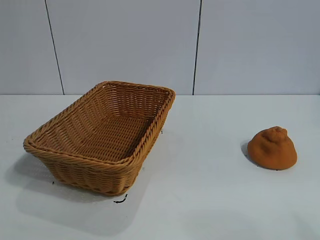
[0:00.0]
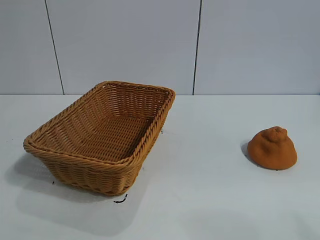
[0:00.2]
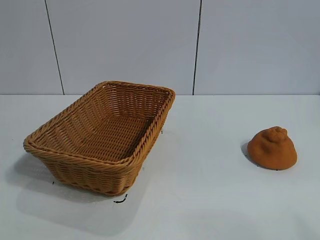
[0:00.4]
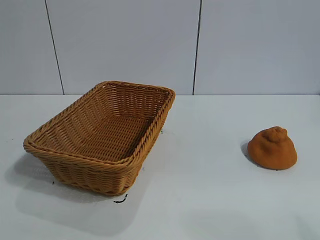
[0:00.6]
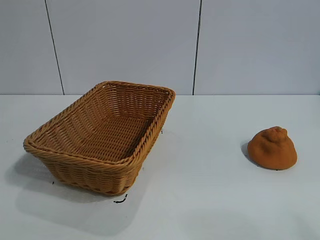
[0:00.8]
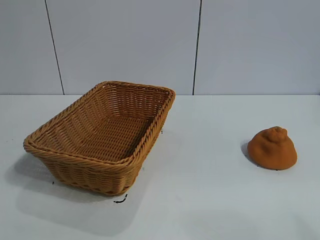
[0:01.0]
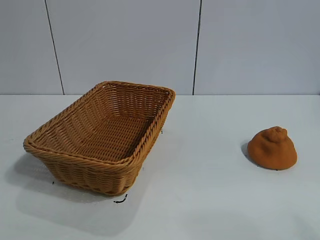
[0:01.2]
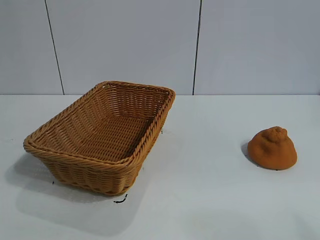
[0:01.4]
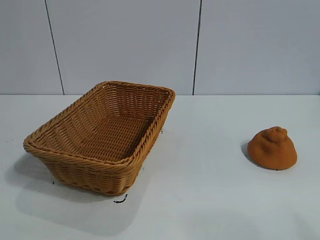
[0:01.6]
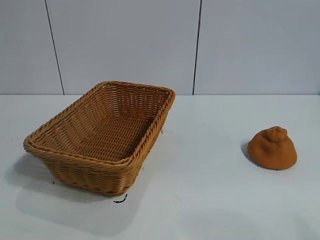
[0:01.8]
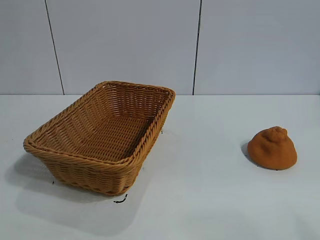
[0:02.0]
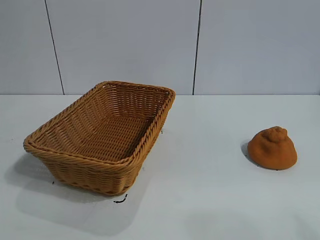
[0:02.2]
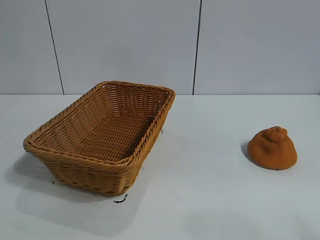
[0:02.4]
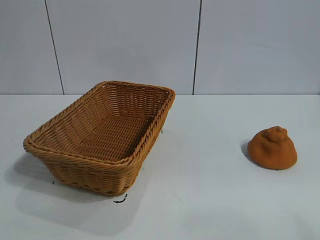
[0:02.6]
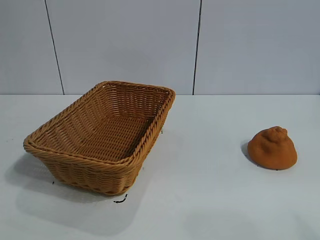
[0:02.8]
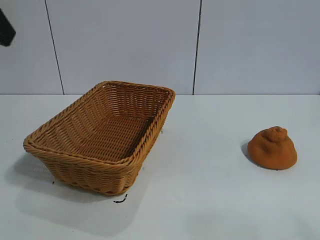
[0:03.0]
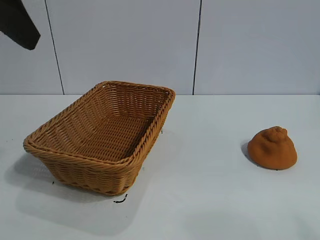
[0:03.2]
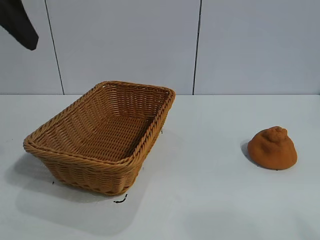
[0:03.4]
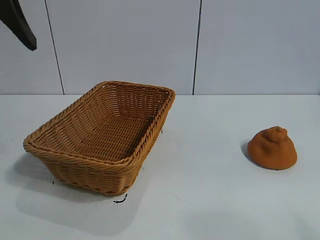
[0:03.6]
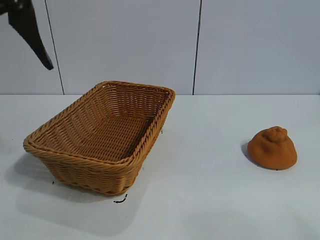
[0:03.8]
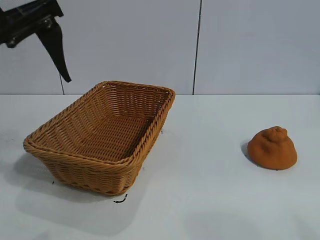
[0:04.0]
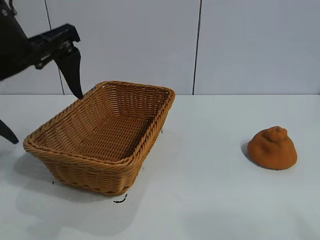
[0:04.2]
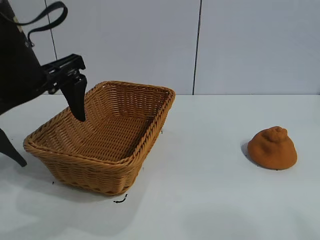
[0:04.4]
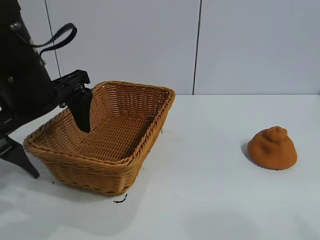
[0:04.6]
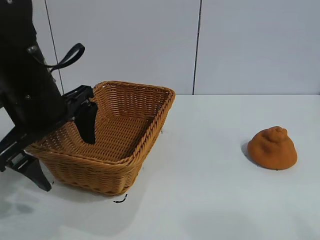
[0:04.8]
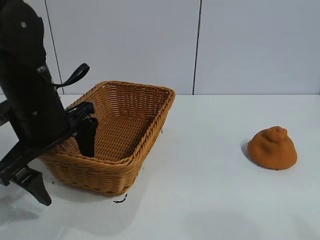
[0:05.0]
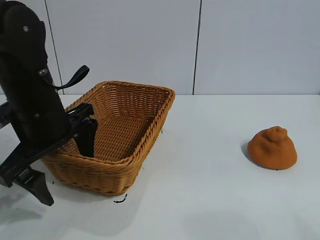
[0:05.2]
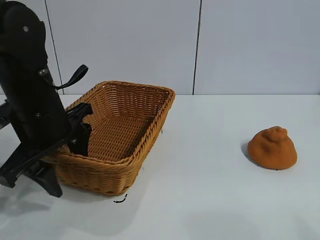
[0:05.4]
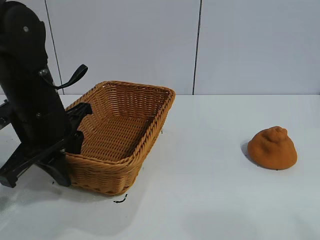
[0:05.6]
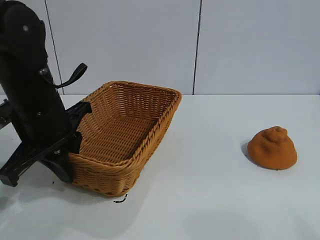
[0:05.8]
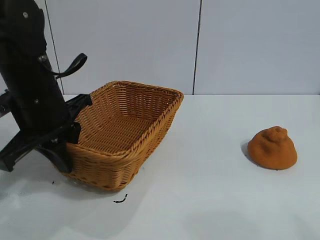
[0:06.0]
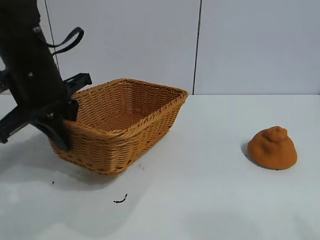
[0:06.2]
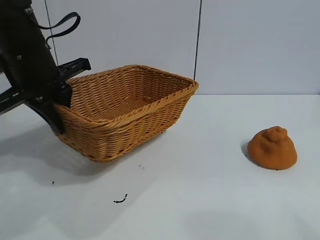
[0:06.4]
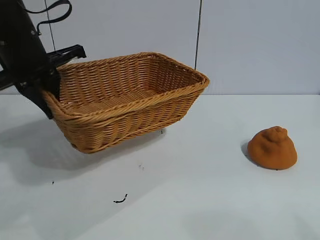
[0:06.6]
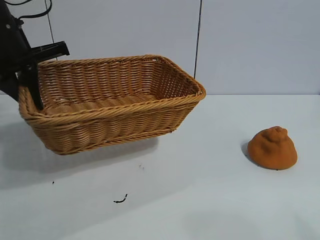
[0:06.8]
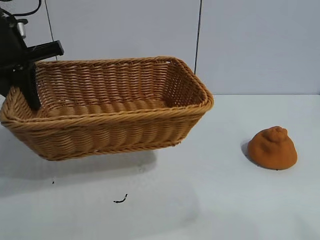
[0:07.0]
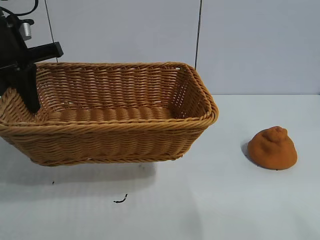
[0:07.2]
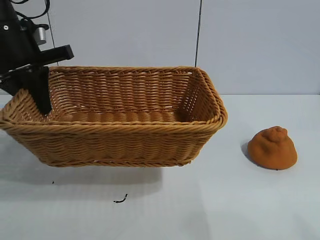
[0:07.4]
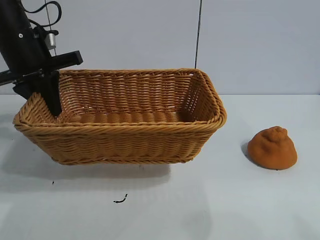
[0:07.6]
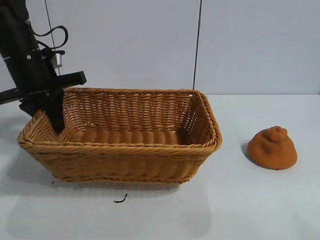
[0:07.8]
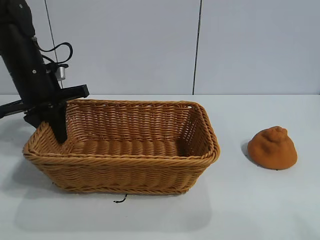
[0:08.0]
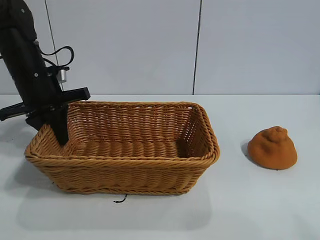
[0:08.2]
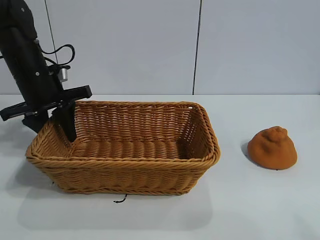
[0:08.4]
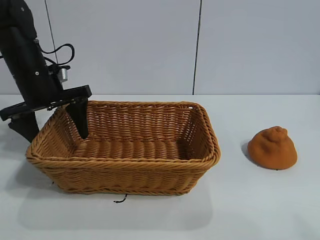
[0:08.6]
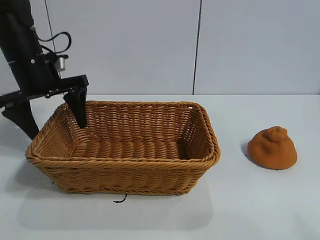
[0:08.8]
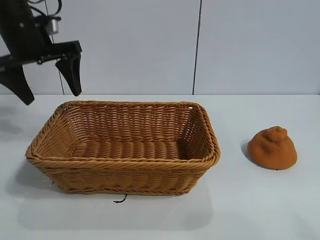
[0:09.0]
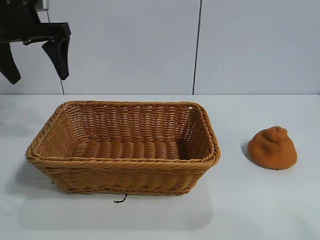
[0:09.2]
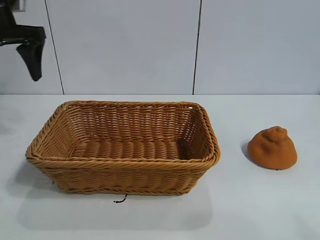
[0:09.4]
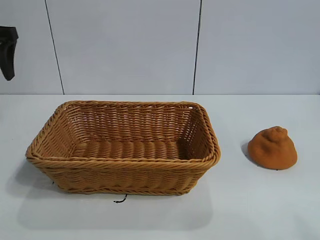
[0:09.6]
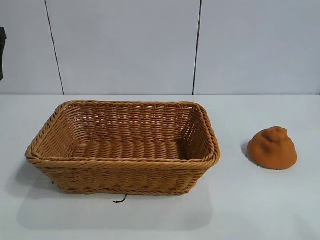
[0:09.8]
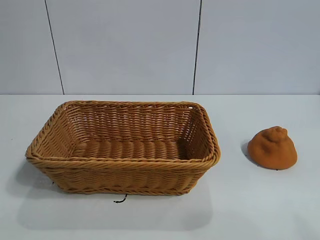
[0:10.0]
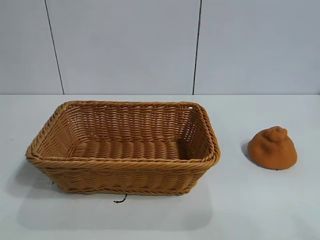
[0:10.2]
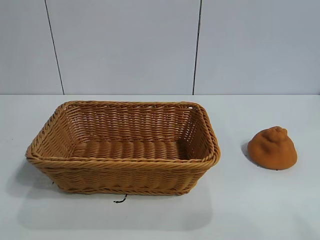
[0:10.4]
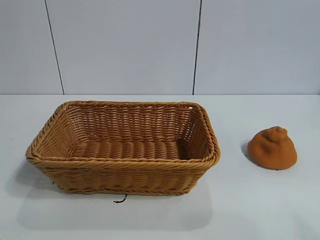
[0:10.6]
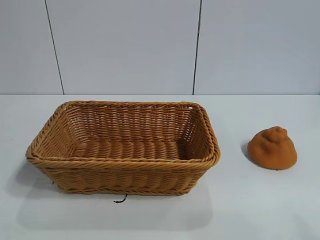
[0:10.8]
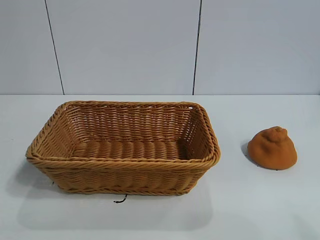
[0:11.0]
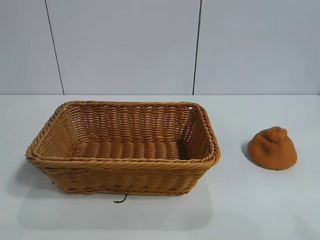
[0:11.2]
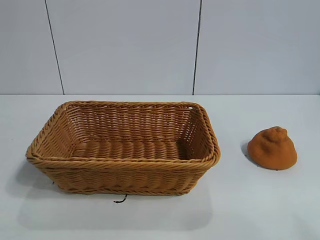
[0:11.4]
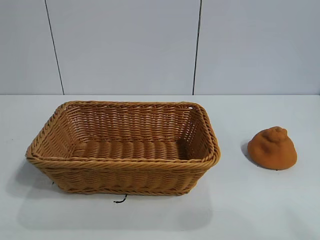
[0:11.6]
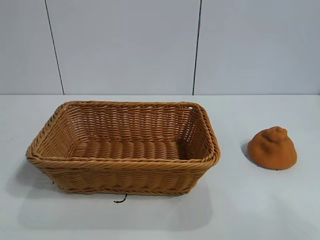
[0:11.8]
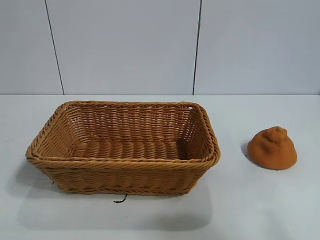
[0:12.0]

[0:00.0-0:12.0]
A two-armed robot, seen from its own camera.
Task of the whole recording: pick up the orange and put it into the basket.
Step, 0:01.6 to 0:05.6: Grasp the basket with left gripper.
Step, 0:05.8 to 0:08.6: Place the basket in the center of view with left gripper.

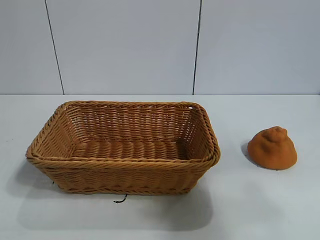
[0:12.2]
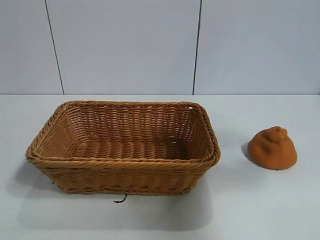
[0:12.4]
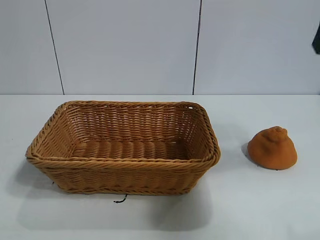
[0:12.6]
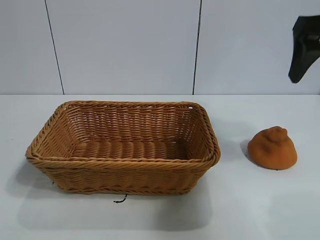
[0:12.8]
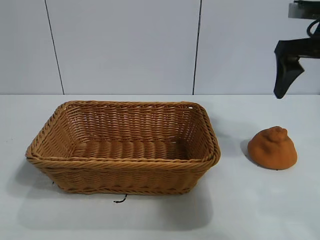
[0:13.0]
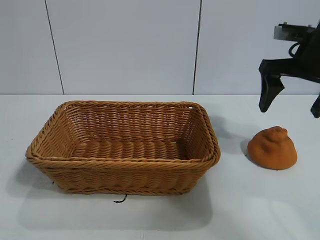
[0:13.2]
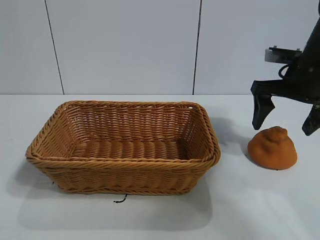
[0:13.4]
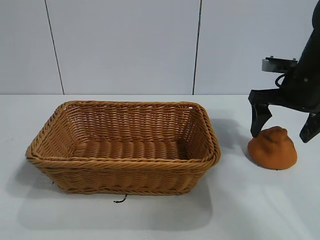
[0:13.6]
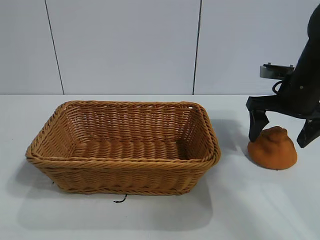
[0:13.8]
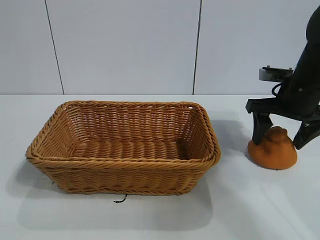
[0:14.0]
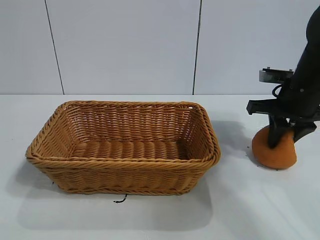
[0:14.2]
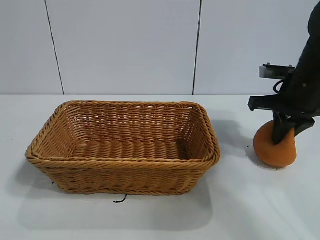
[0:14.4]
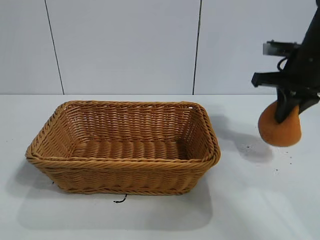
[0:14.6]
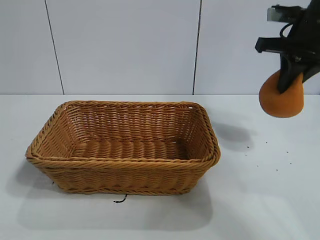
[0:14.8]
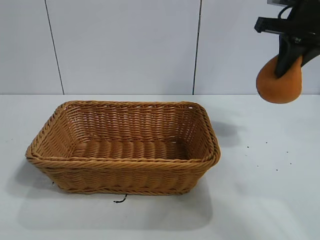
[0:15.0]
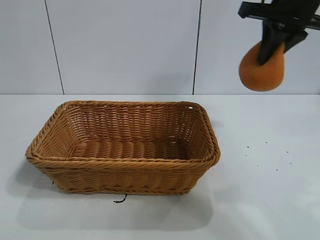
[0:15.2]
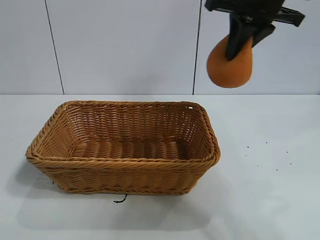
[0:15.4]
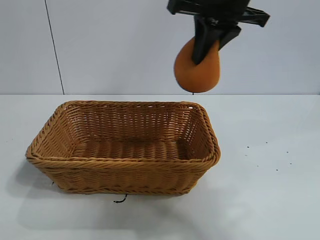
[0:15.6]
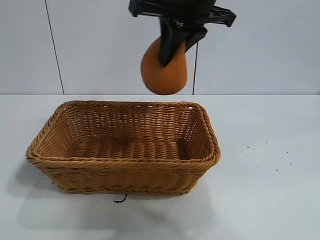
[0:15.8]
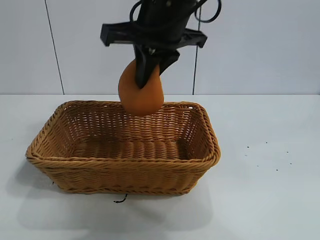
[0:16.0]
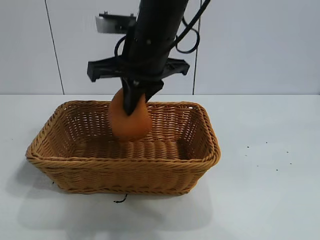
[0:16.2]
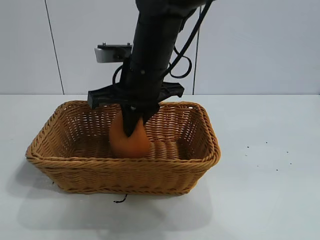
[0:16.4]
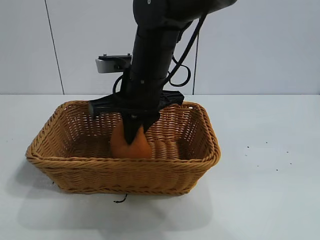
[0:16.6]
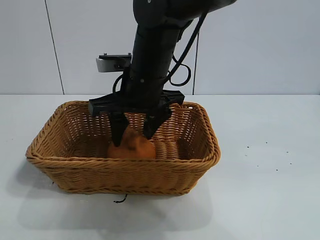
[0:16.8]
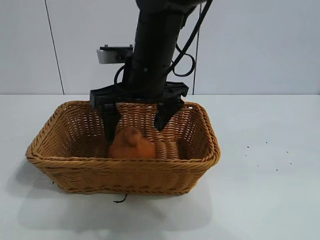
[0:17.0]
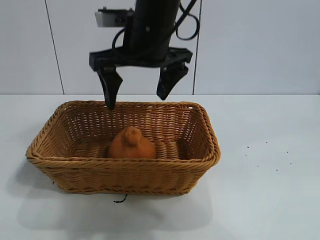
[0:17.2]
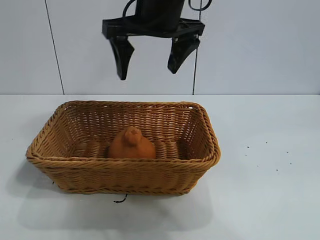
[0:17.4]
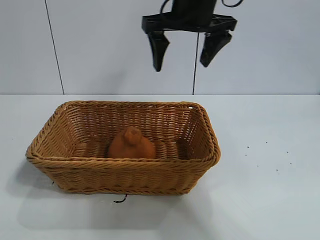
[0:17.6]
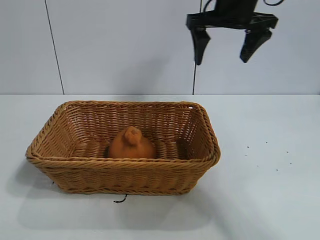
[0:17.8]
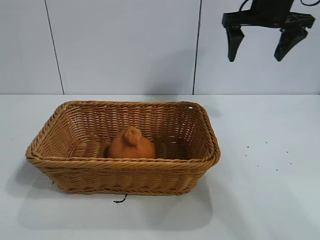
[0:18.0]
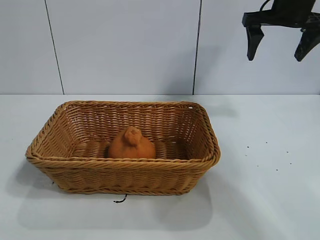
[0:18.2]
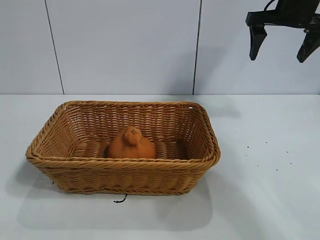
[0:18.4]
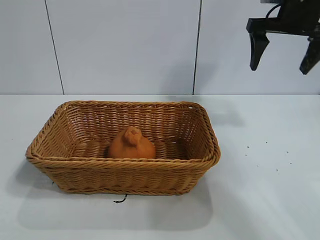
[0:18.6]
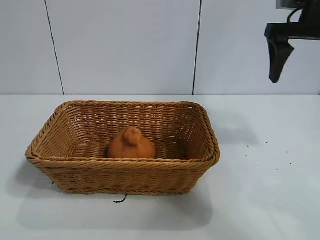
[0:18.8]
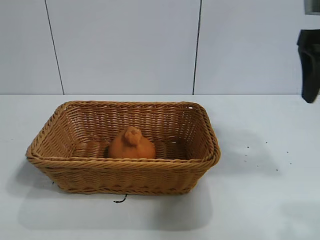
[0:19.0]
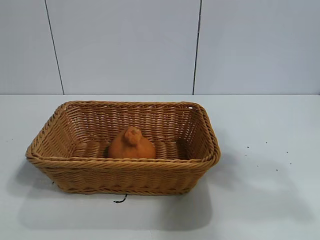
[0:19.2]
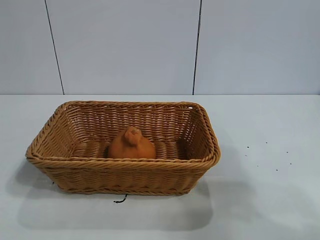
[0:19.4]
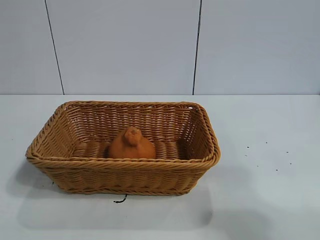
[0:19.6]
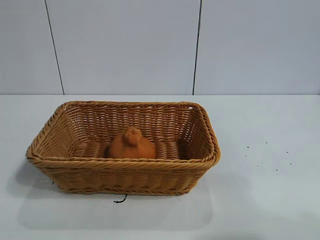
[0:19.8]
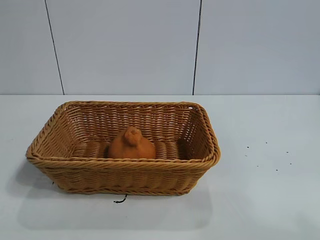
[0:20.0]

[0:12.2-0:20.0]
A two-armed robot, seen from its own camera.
Task of the whole recording: pick up the orange and put it into the basket.
Step, 0:12.2 to 0:14.4: Grasp the orange with right gripper.
Step, 0:14.6 to 0:16.8: Place the orange in the basket with right gripper.

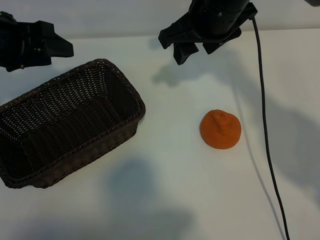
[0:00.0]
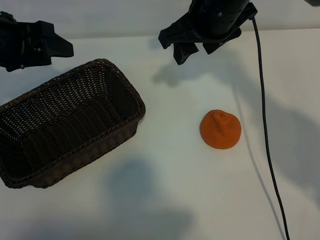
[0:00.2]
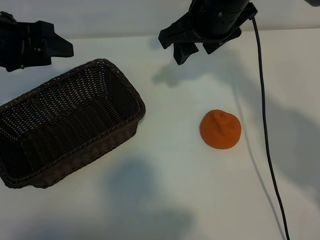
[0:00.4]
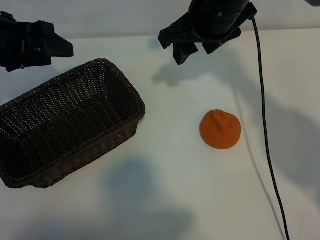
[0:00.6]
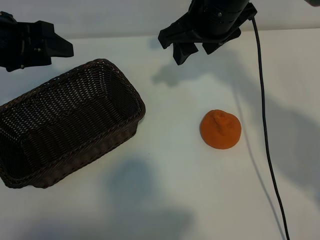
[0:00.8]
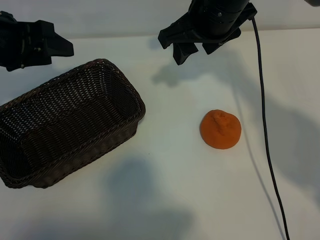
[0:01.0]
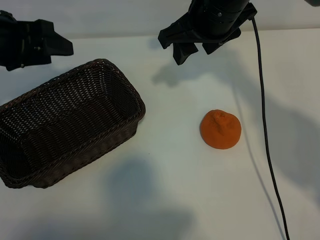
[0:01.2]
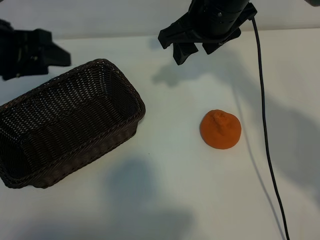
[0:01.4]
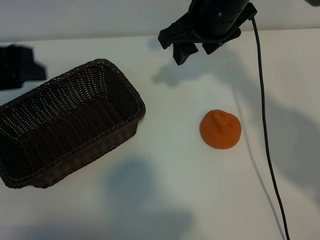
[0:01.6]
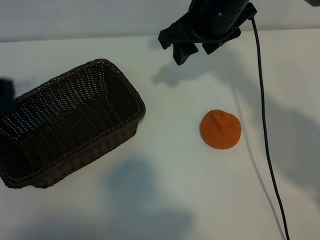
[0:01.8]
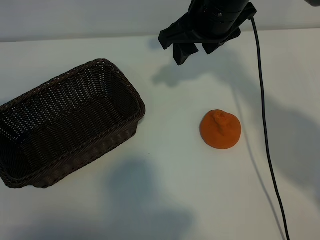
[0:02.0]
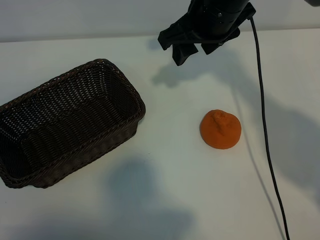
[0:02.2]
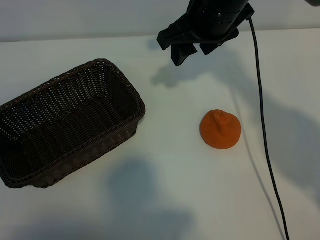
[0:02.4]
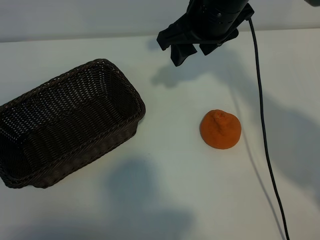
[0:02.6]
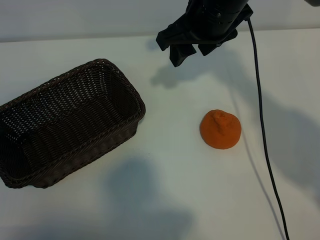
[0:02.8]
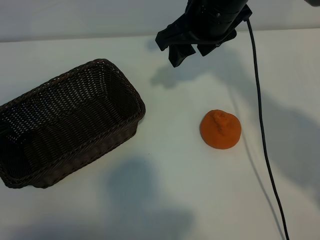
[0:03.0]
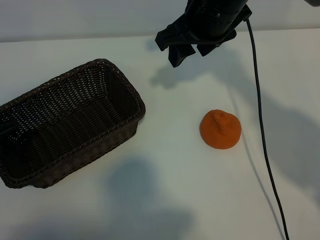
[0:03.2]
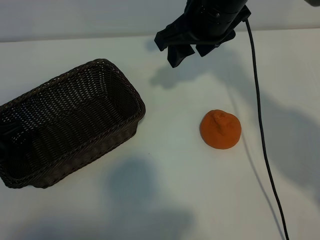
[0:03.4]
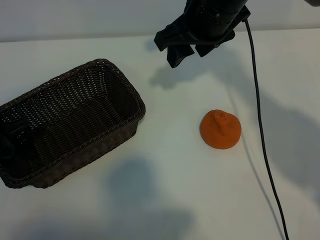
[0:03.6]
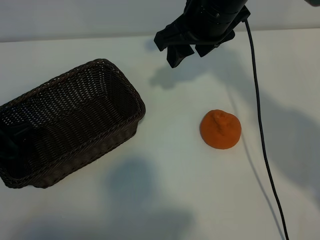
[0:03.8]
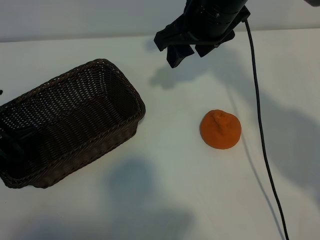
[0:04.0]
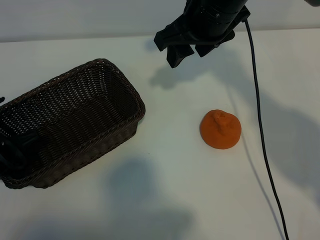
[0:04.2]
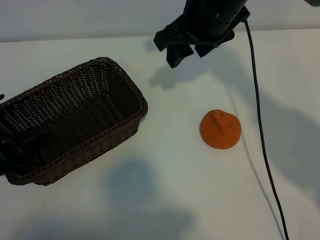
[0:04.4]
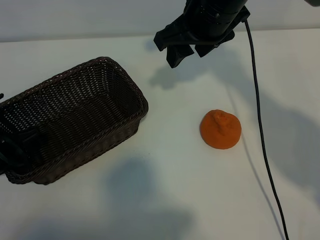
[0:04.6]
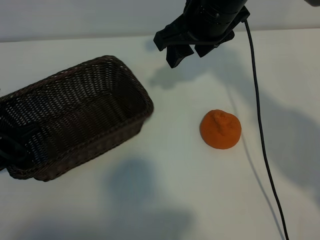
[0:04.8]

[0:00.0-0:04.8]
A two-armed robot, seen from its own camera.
Task of the whole recording: pick up the orange and put it into the basket.
Step, 0:01.0 to 0:04.2: Grasp the basket with left gripper.
